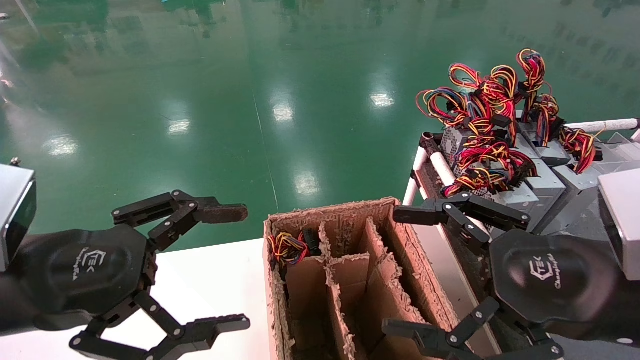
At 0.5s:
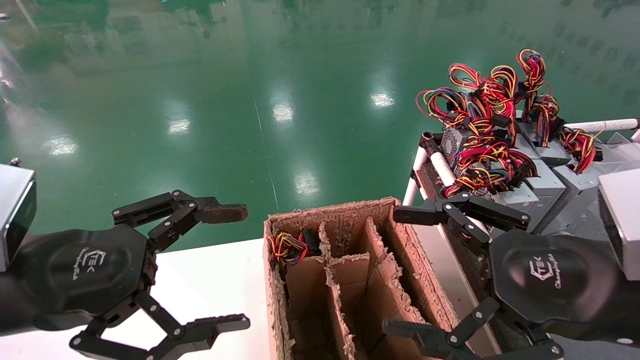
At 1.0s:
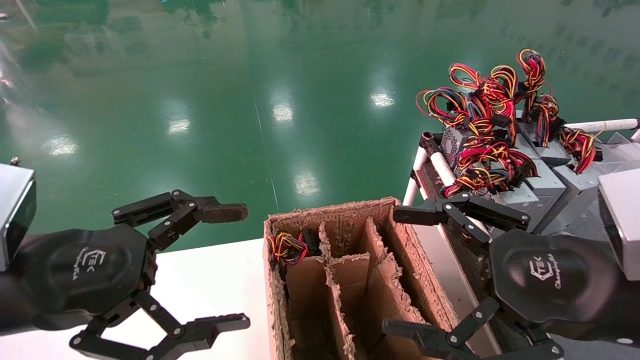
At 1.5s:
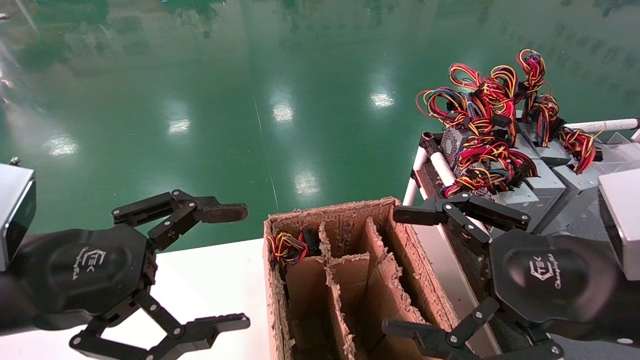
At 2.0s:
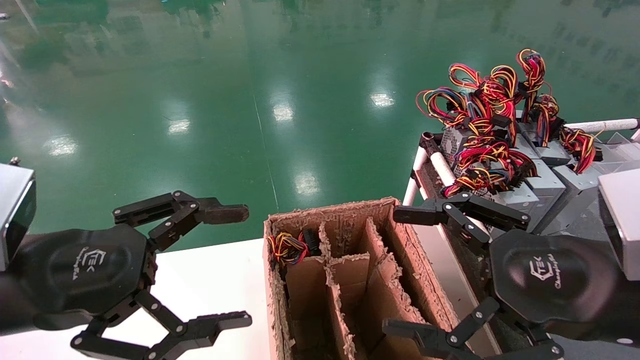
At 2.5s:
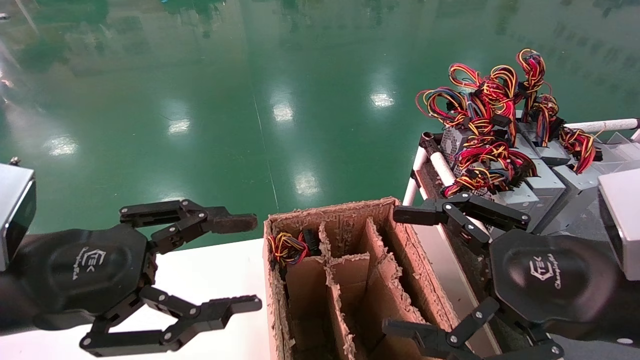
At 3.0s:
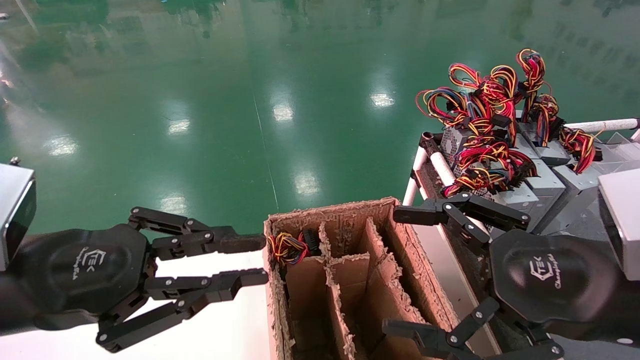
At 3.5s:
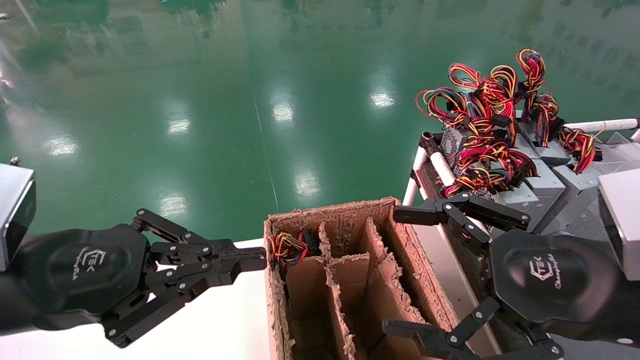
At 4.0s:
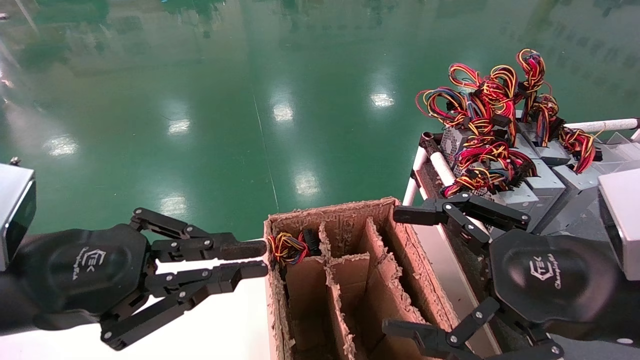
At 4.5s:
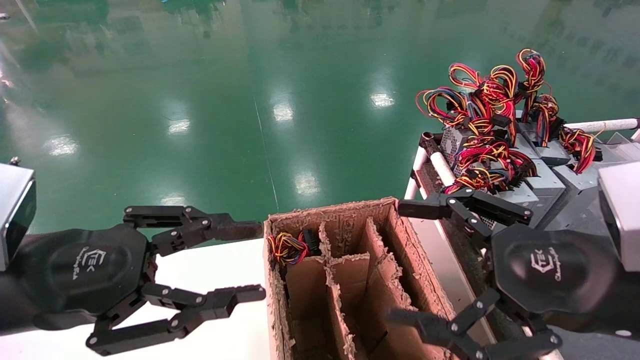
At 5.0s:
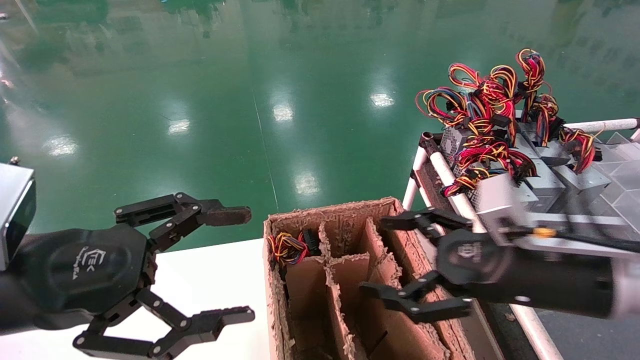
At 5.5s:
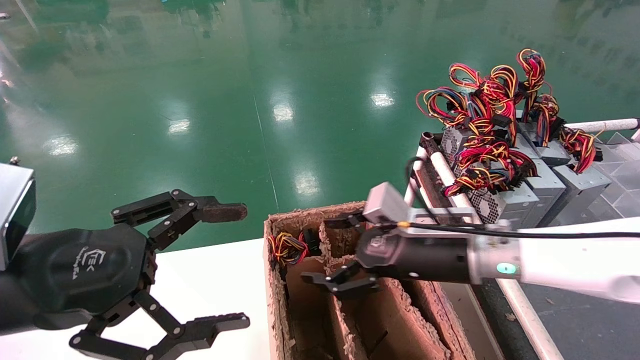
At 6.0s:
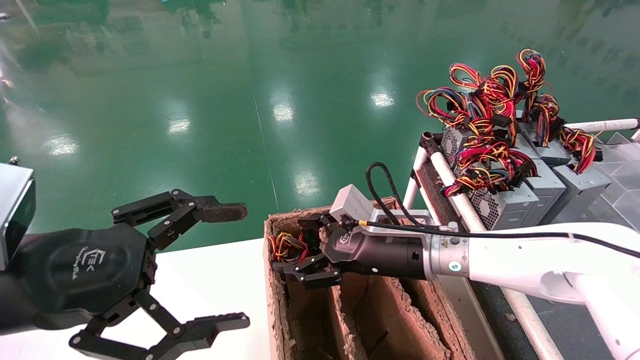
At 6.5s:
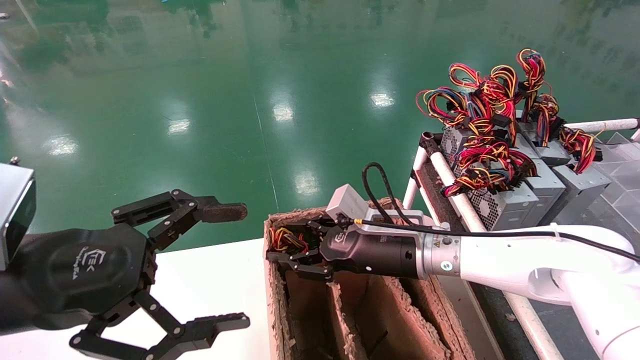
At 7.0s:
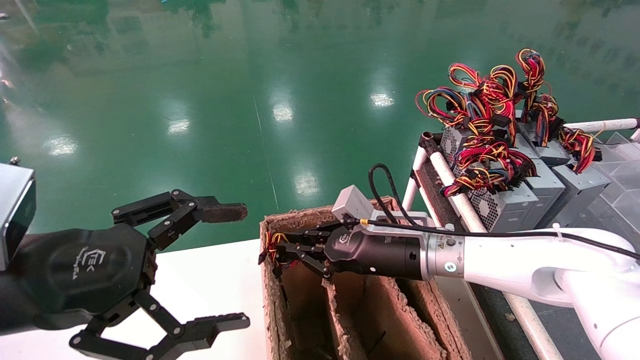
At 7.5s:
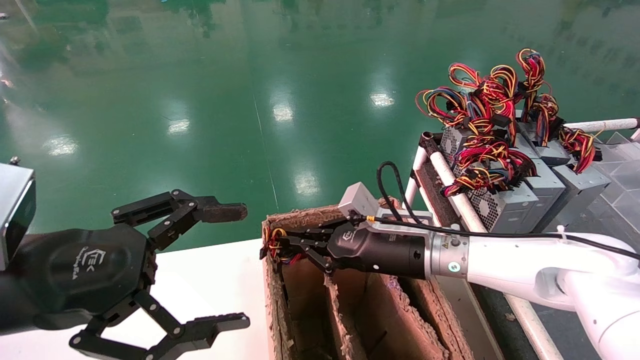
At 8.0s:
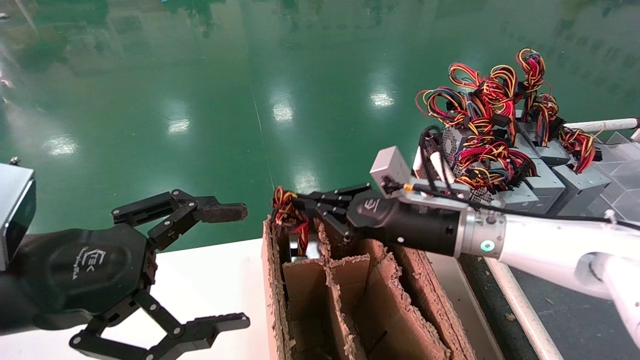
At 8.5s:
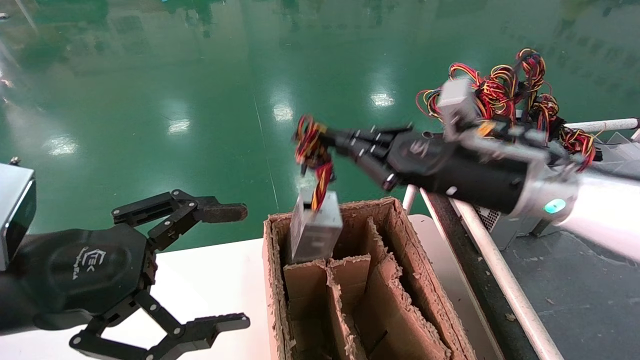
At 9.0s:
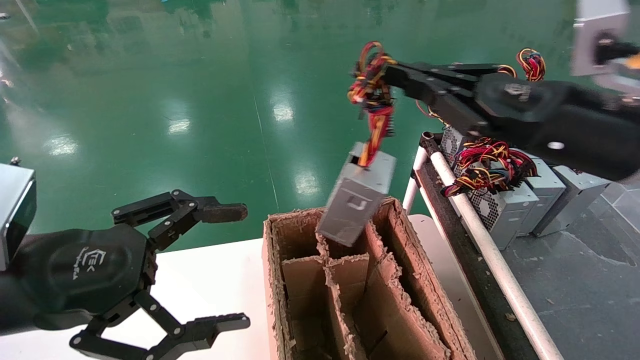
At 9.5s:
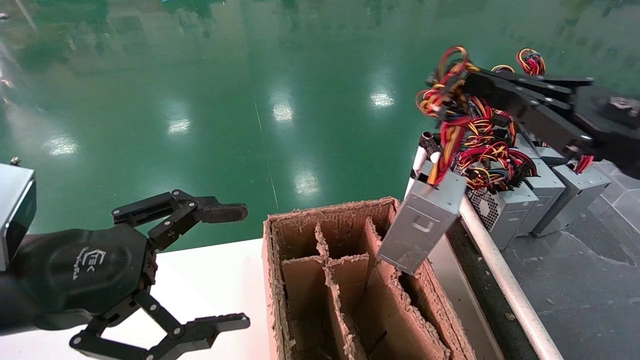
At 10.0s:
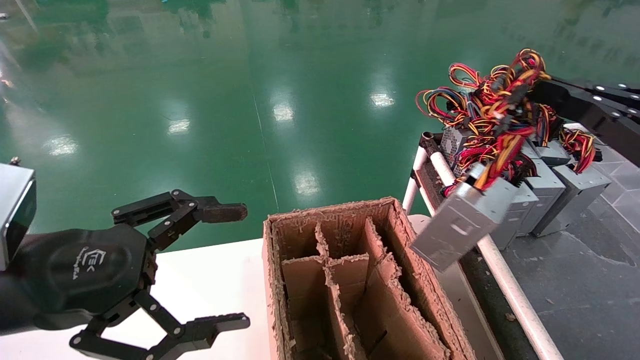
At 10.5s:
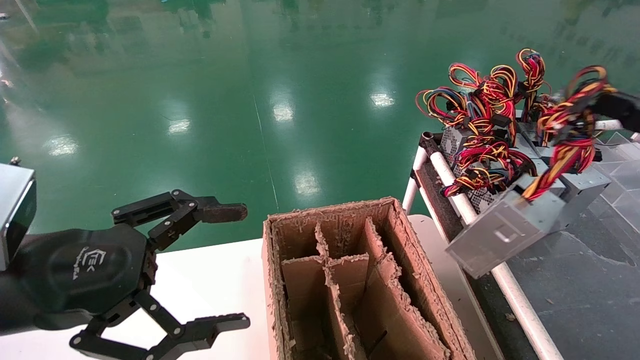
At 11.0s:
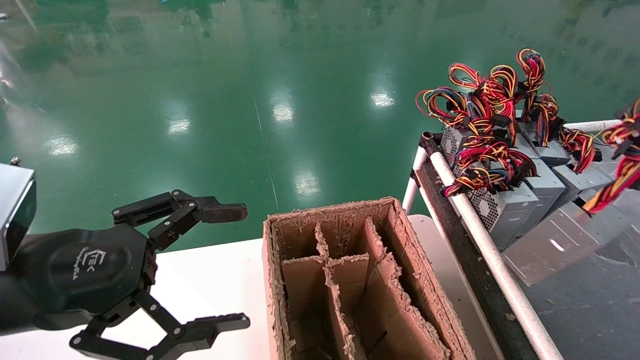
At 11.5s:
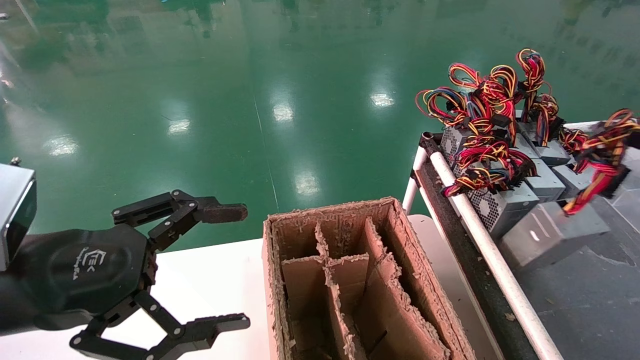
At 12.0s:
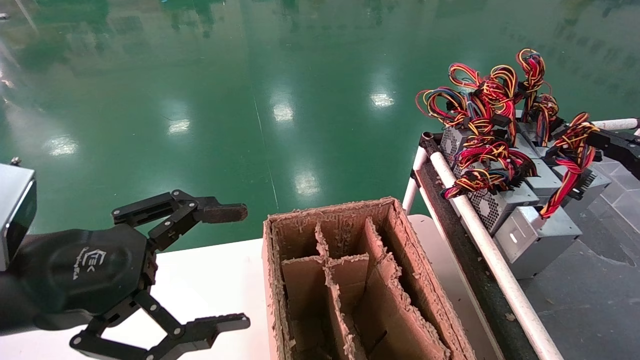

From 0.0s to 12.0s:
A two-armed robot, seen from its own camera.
Step, from 3.5s to 7.0s: Grab and lift the power supply from the large box.
From 0.0s to 2.0s: The two grippers keep their place.
From 2.0s to 4.0s: The left gripper closes its fingers.
From 4.0s to 6.0s: The right gripper moves forward, to the left and downward, about 25 cm. The left gripper opens up.
From 6.0s to 8.0s: The right gripper ends up approximately 5 cm from where it was, and closes up.
From 8.0s to 10.0s: The right gripper moves to the right, backward and upward, some 30 cm.
From 10.0s to 12.0s: The right gripper heads to the right and downward, covering approximately 10 cm.

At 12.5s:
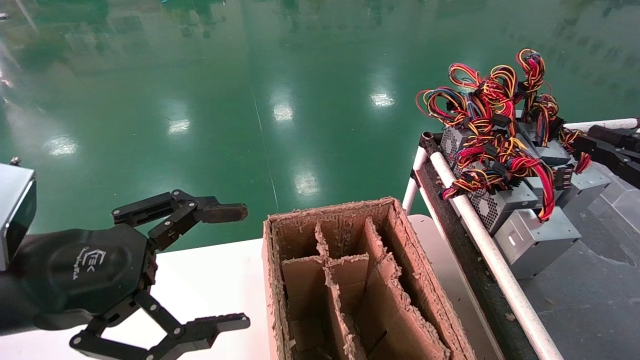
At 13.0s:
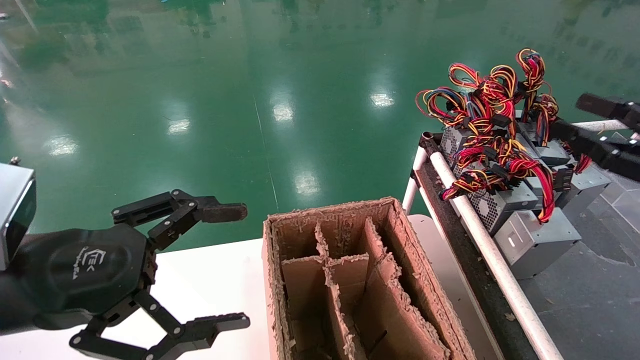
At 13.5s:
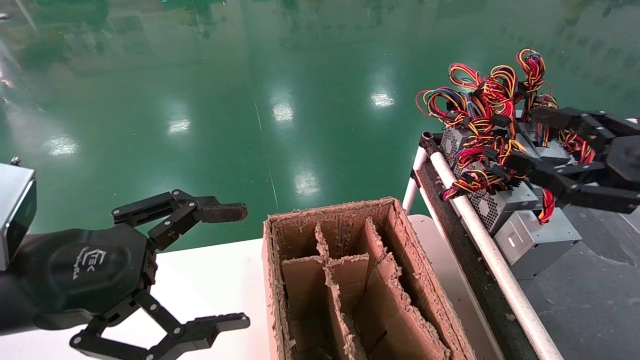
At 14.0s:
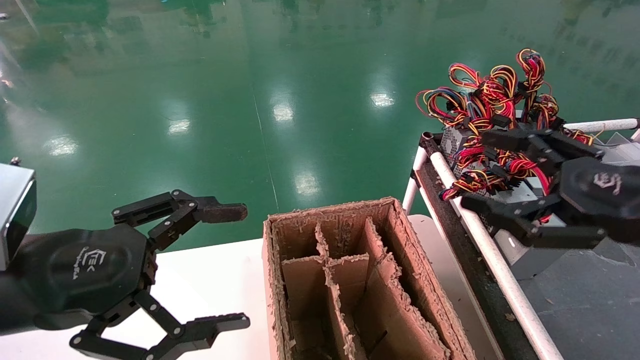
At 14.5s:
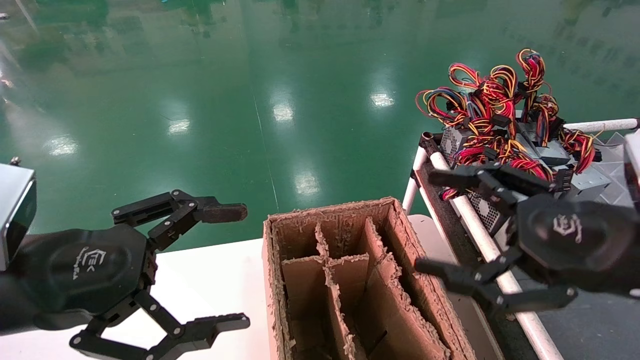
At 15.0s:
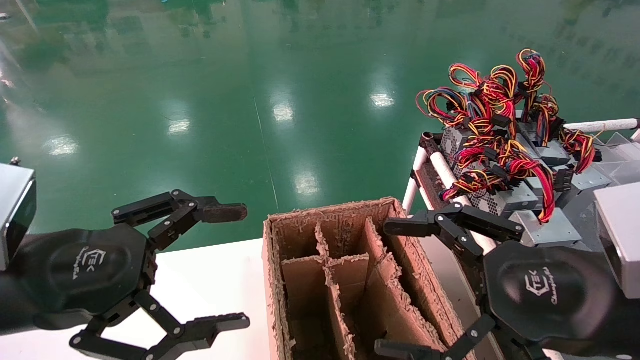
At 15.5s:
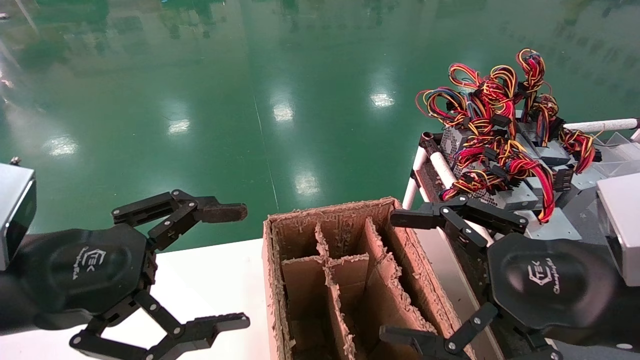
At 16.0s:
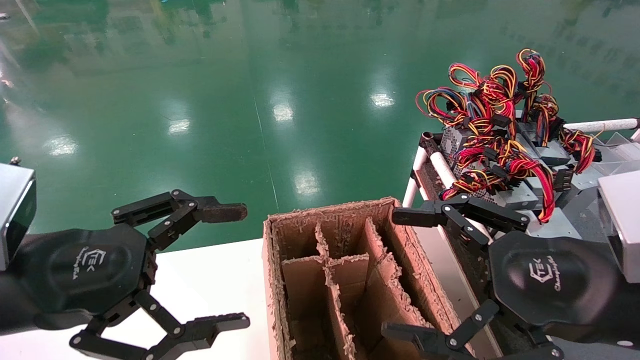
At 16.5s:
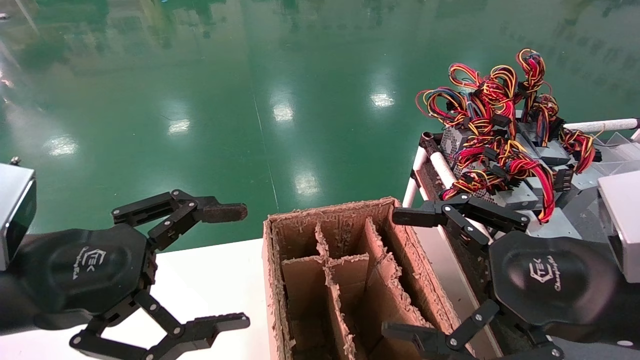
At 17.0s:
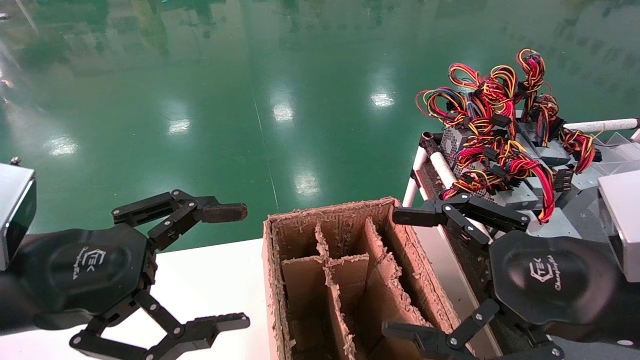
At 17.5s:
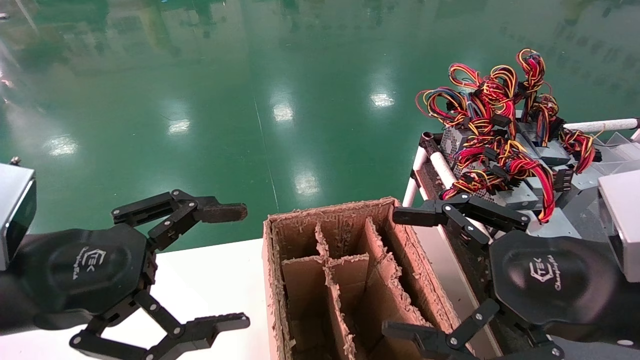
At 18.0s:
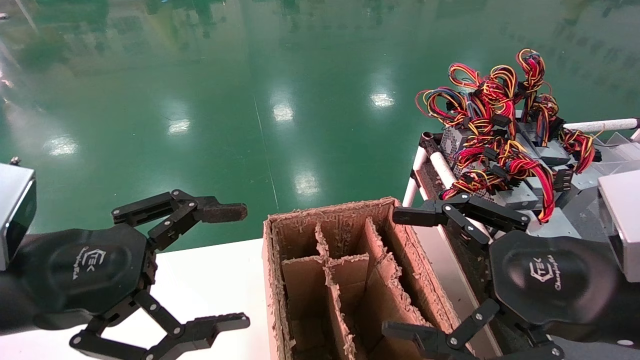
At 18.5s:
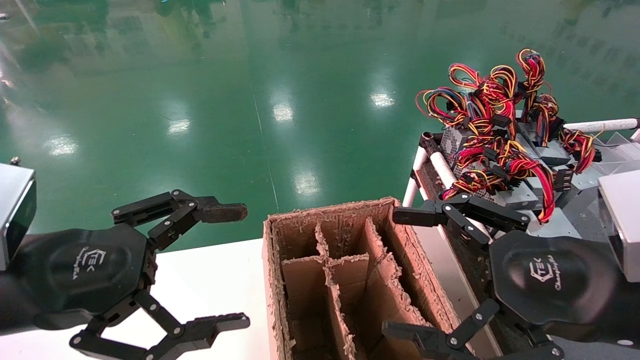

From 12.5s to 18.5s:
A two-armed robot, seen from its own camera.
From 12.5s to 14.5s: The right gripper moves to the left, some 20 cm, and opens its fingers.
From 14.5s to 16.5s: There are only small adjustments of the grippers.
From 16.5s to 18.5s: Both grippers stay put.

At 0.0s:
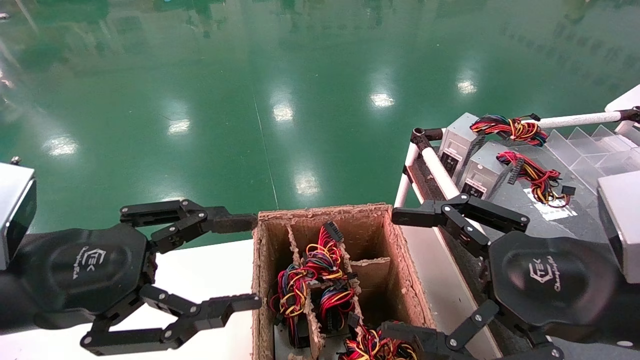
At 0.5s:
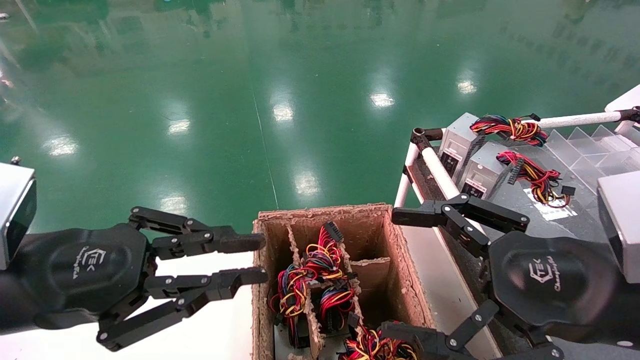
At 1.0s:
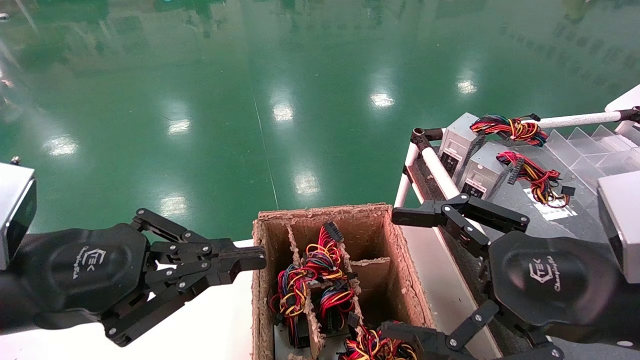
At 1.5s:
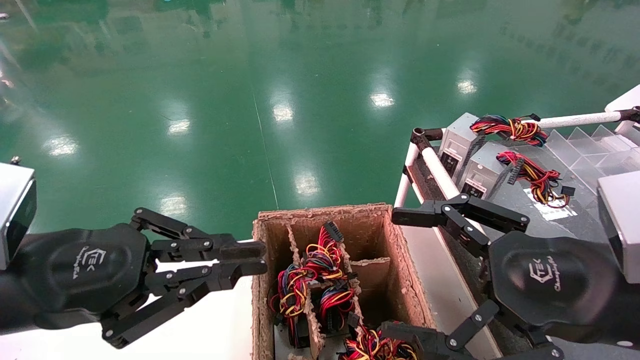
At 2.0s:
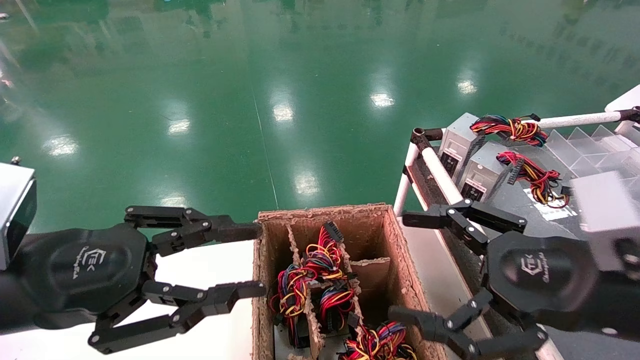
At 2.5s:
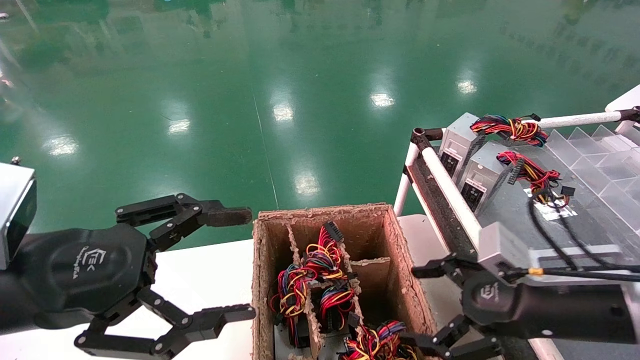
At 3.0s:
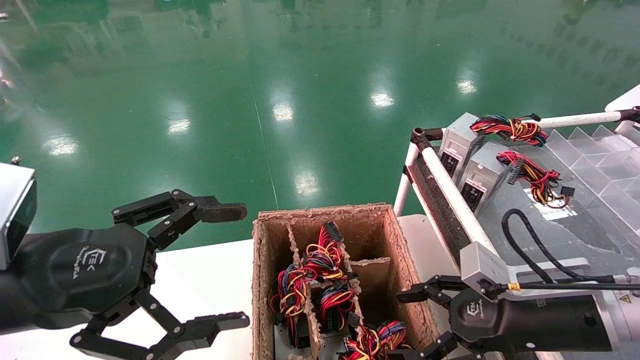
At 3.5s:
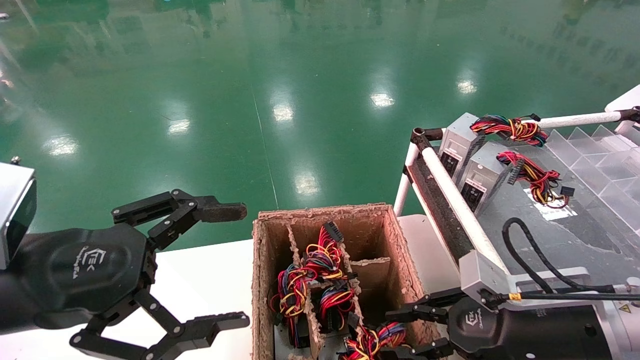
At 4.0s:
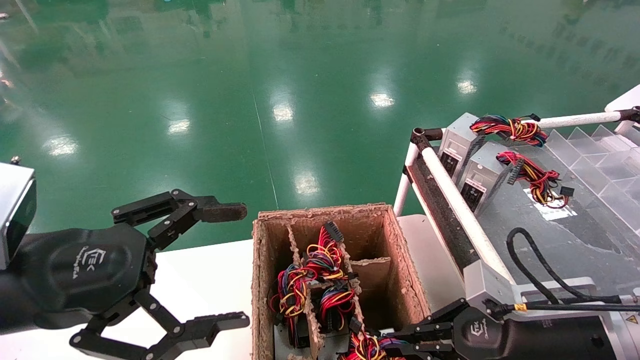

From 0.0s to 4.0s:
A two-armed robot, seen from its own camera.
Step, from 1.5s to 3.5s: Grab and lift the power supply from the large box.
From 0.0s to 2.0s: The grippers move only a little.
From 2.0s to 4.0s: The right gripper travels downward and forward by roughly 10 cm, and closes its fingers, while the left gripper opens its fingers.
